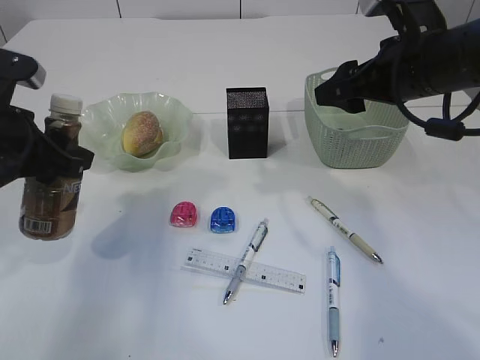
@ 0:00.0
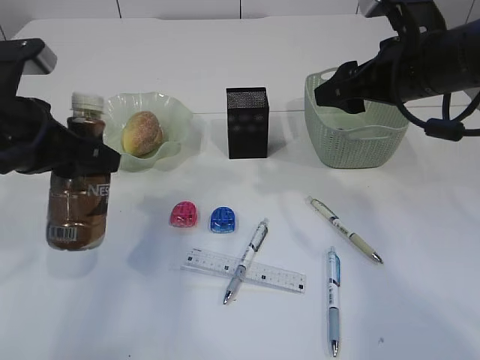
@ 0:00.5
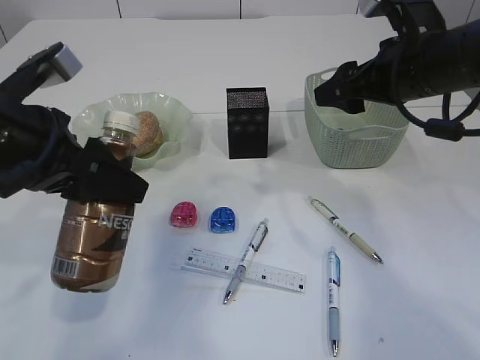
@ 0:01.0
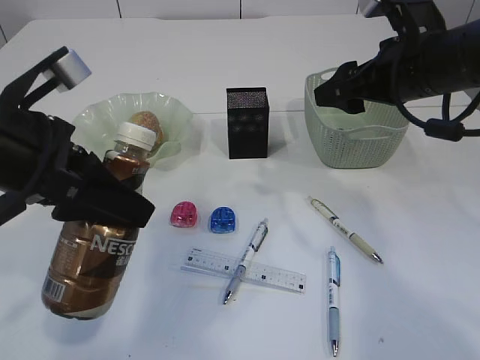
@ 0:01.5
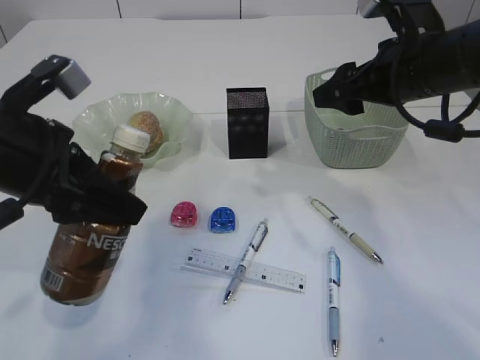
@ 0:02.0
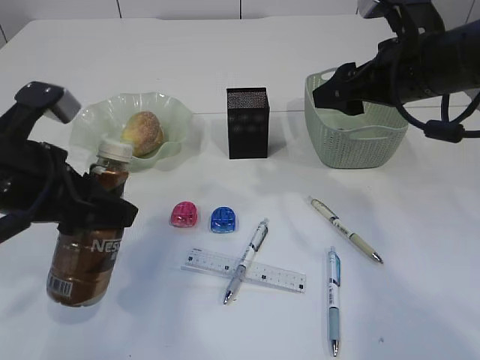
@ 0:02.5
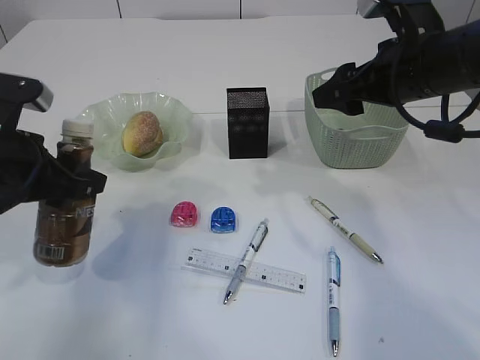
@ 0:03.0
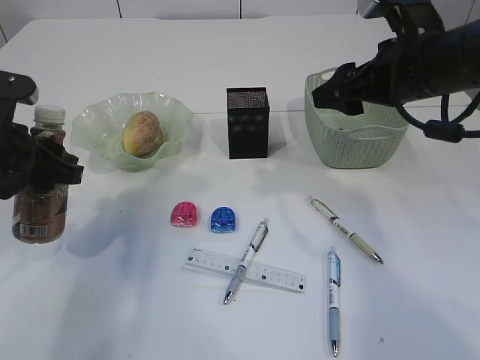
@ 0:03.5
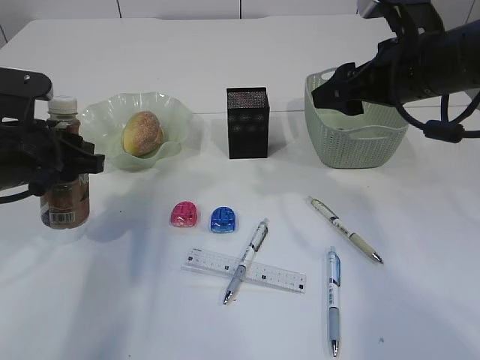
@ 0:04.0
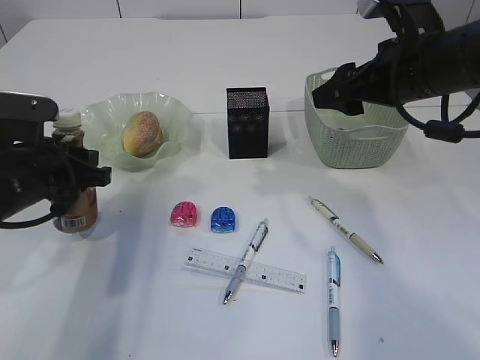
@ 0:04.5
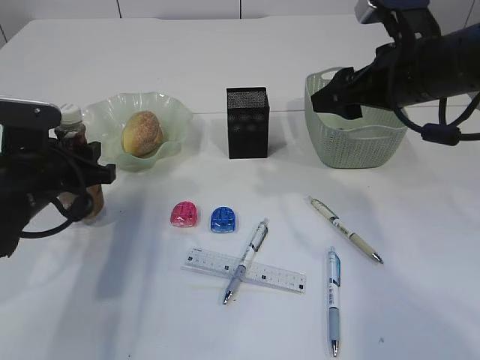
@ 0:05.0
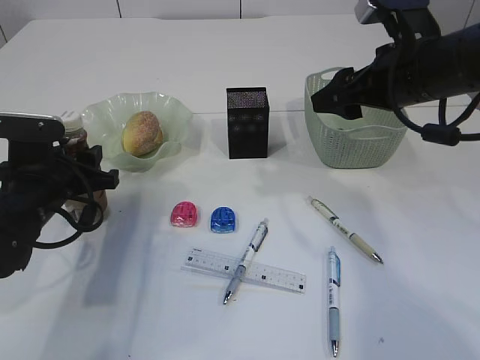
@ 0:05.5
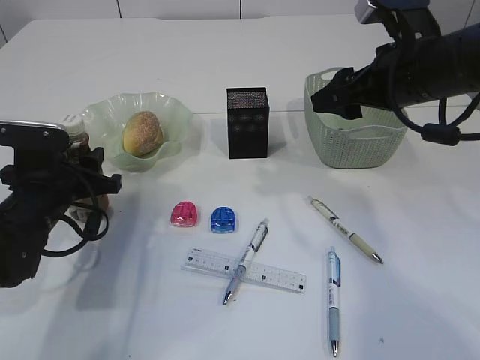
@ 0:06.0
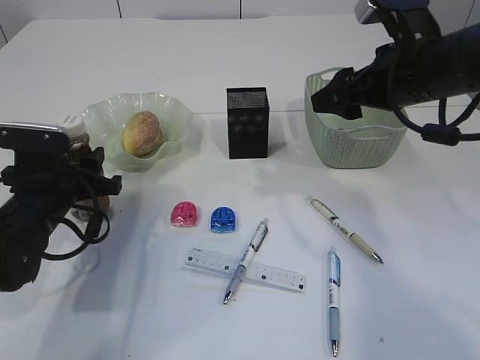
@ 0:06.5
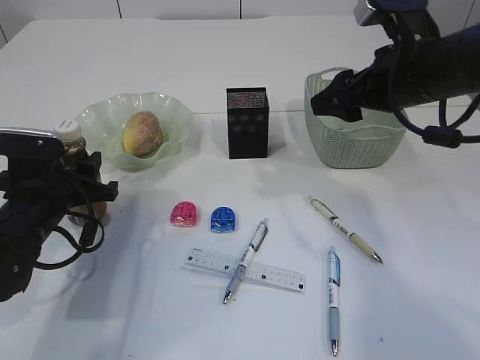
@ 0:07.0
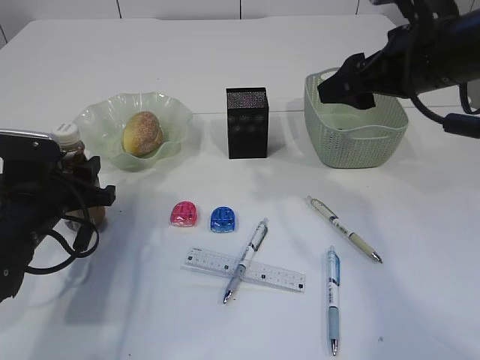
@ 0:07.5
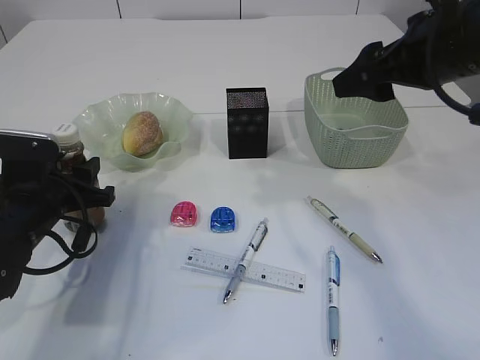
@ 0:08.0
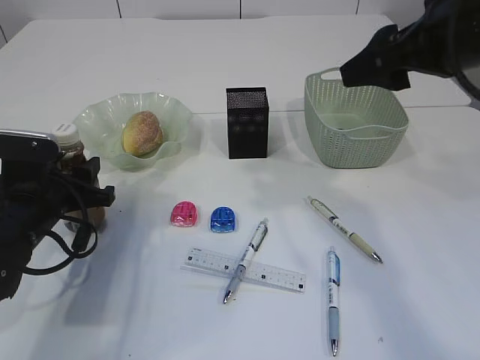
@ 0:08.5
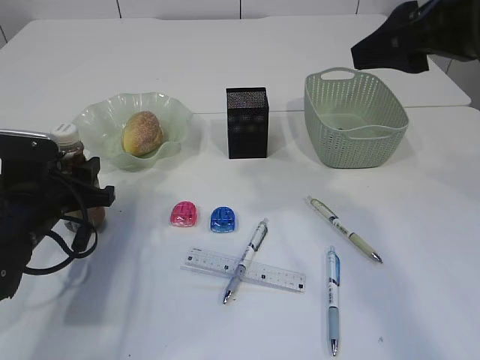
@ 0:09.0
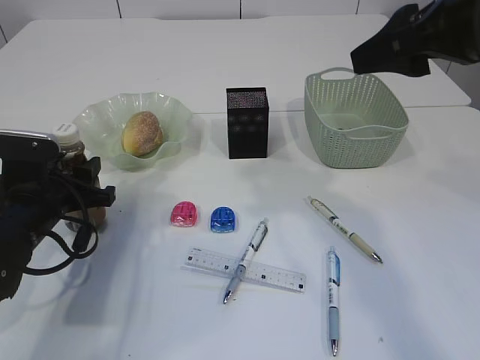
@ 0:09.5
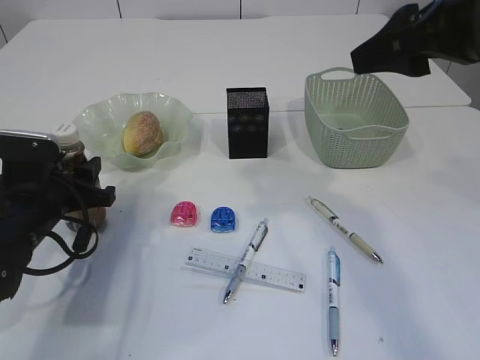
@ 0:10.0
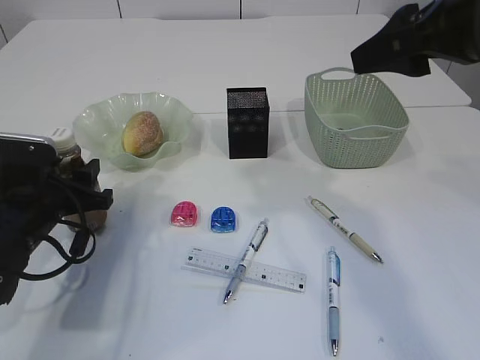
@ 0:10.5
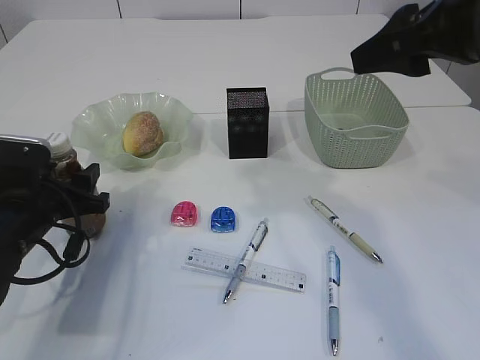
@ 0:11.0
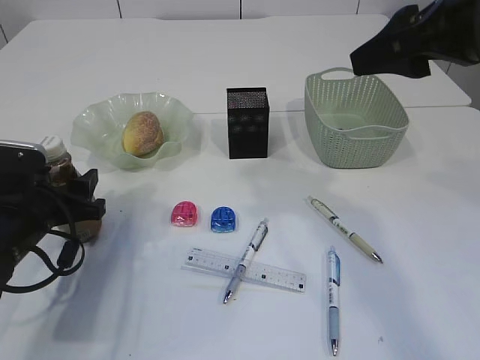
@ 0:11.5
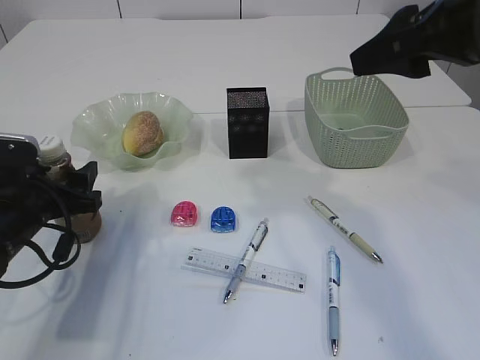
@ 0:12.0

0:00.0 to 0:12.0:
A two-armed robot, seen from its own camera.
0:00.0 to 0:02.0: The left gripper shifts by roughly 5 cm.
0:02.0 to 0:04.0: The left gripper heads downward and forward, covering roughly 10 cm.
0:04.0 to 0:06.0: The left gripper moves downward, approximately 10 cm.
0:06.0 to 0:08.0: The right gripper changes place by some 5 cm.
0:08.0 to 0:10.0: The right gripper shifts by roughly 5 cm.
0:10.0 to 0:12.0: The left gripper opens.

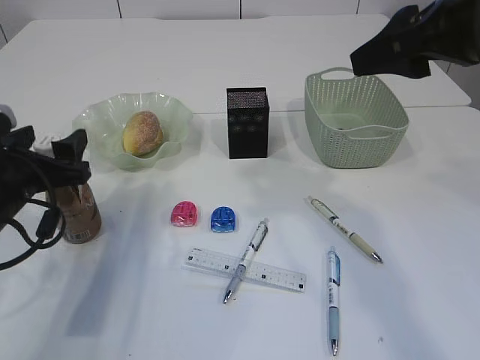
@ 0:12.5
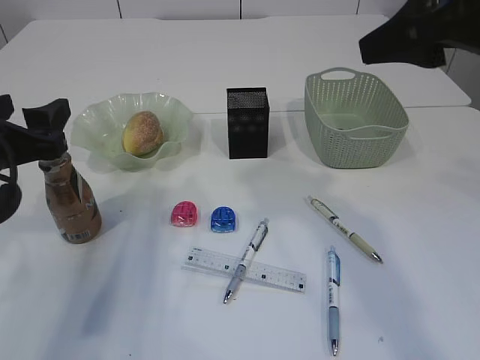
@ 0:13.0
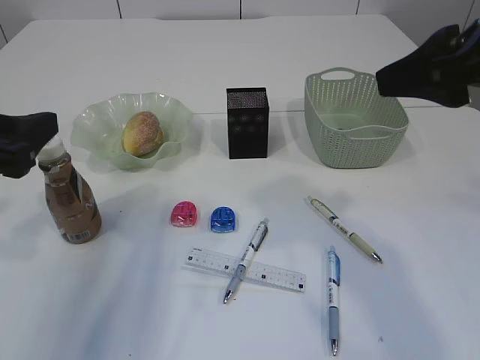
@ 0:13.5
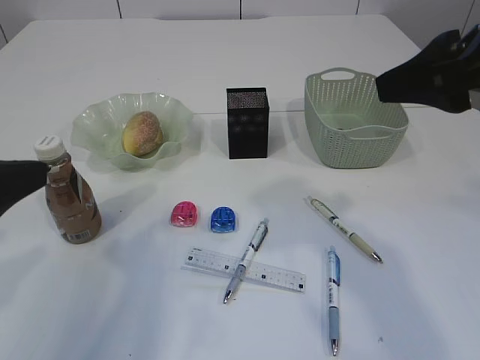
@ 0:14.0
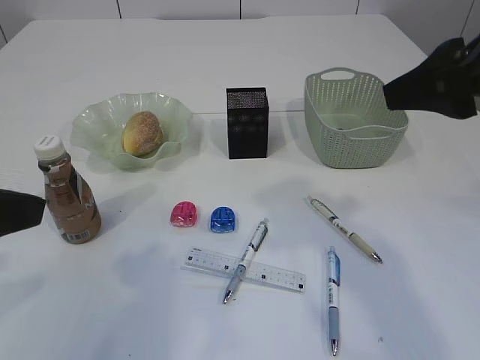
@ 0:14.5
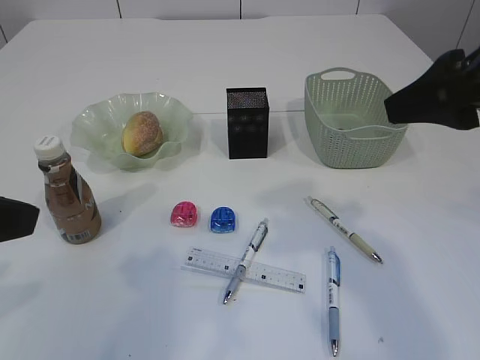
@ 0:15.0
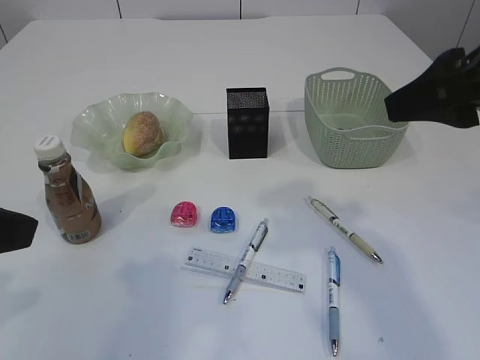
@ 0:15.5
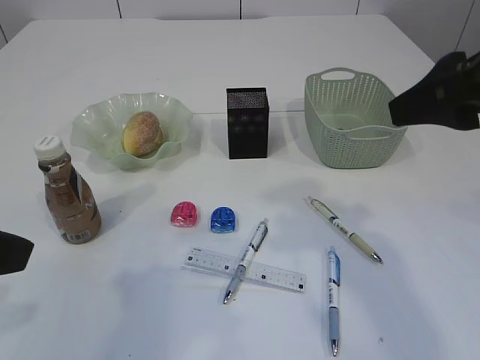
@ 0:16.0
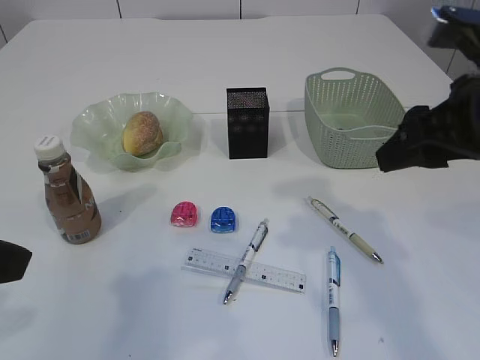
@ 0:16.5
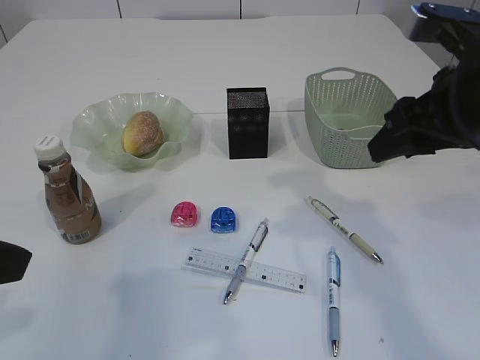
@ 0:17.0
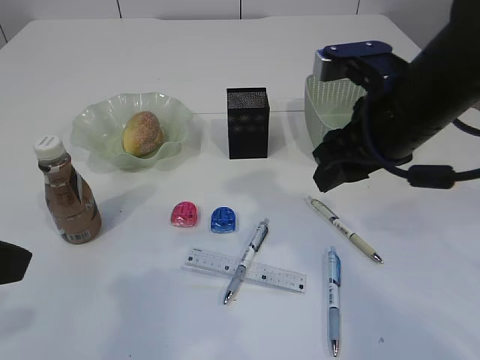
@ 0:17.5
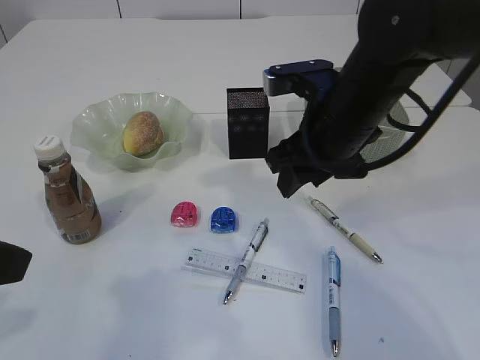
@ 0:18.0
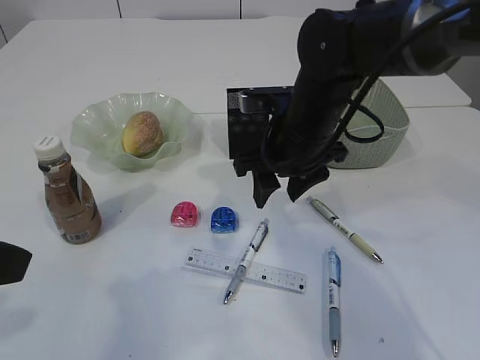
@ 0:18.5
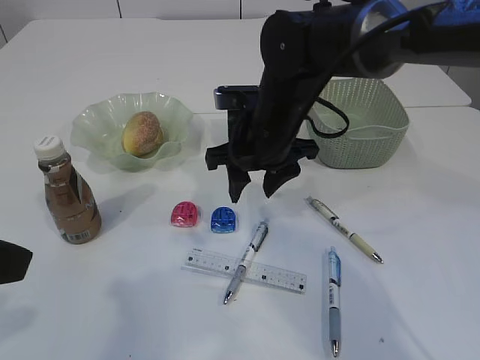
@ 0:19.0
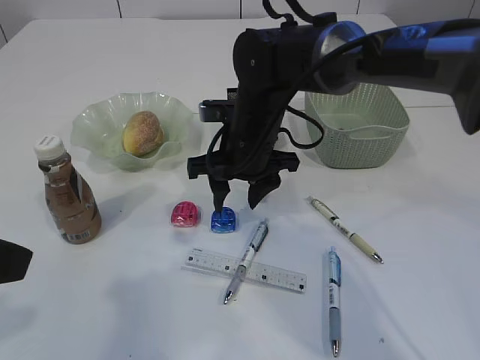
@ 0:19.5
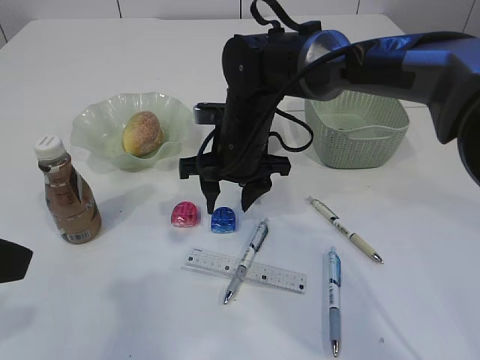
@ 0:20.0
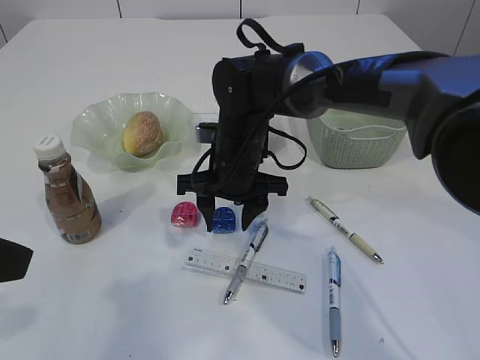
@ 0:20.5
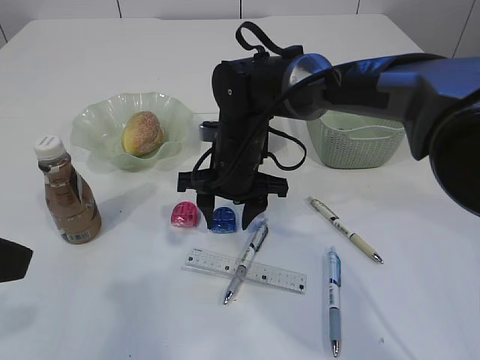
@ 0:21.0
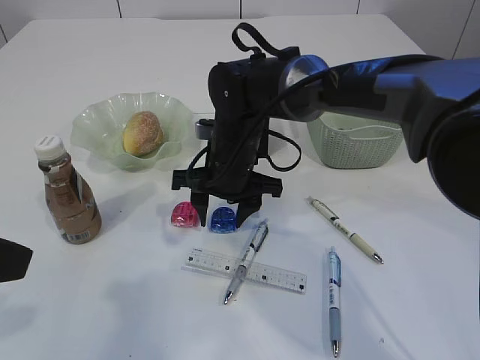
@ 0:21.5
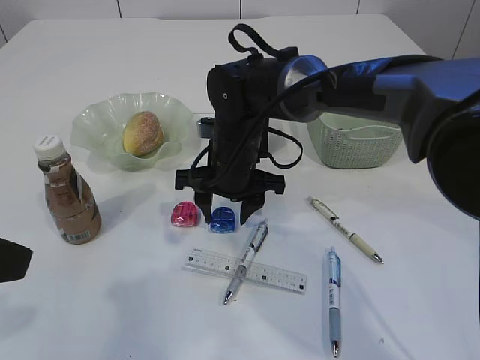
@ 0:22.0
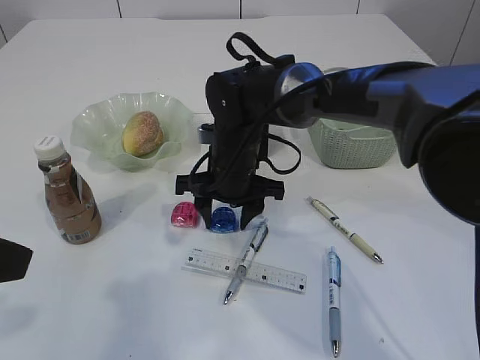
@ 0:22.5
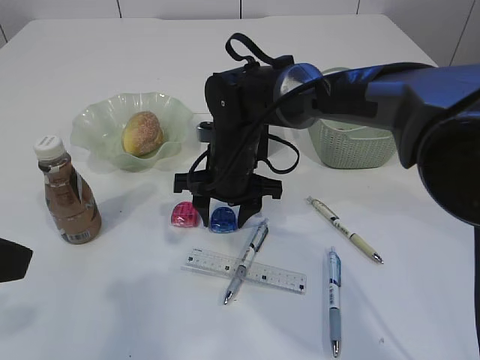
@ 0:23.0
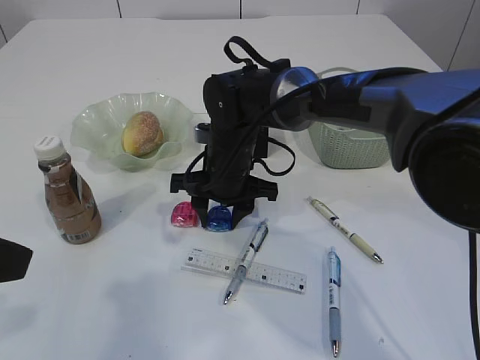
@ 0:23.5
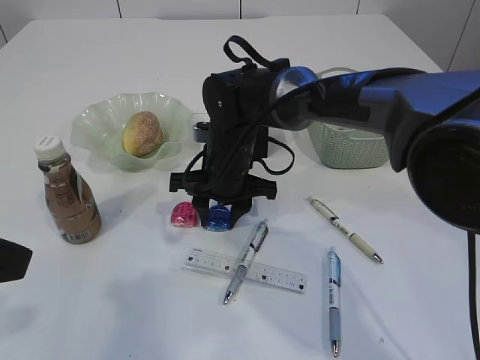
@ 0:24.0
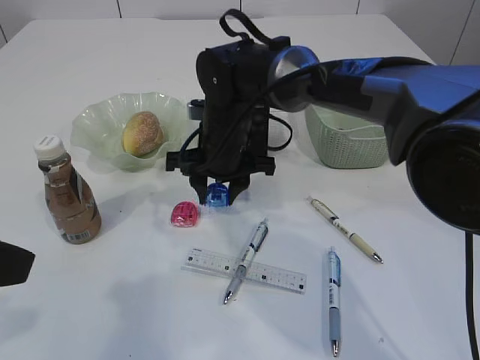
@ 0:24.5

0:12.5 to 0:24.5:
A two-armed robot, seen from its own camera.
0:12.5 to 0:14.5: The left gripper heads upward and backward, covering approximately 20 cm. The right gripper changes place by approximately 5 cm.
0:14.5 to 0:16.5: The right gripper shifts about 5 cm downward.
0:16.5 to 0:18.5: The right gripper shifts approximately 20 cm to the left, forward and downward.
0:18.5 to 0:20.5: The right gripper shifts about 10 cm to the left and downward.
0:20.5 to 0:24.5: The grippers move only a little.

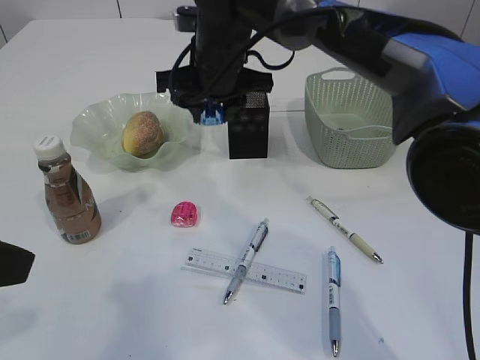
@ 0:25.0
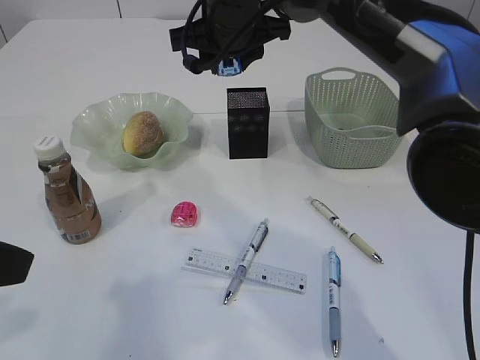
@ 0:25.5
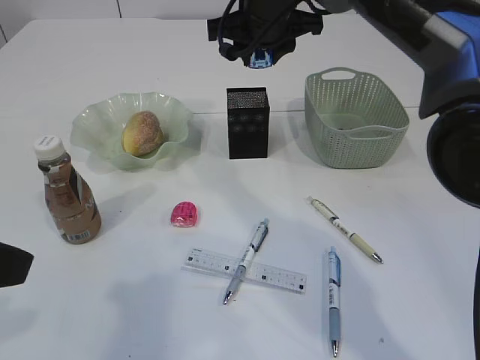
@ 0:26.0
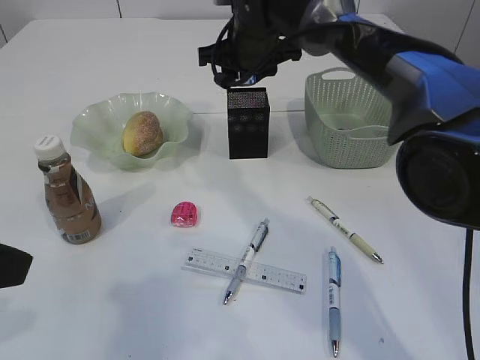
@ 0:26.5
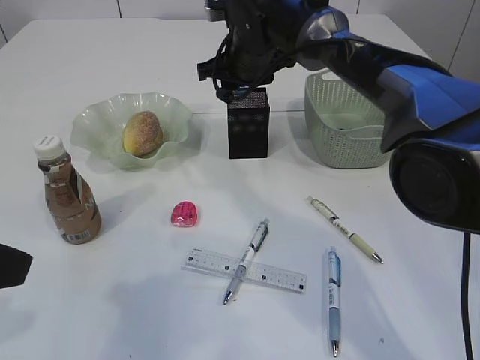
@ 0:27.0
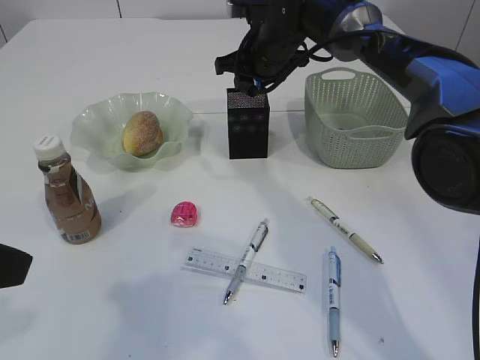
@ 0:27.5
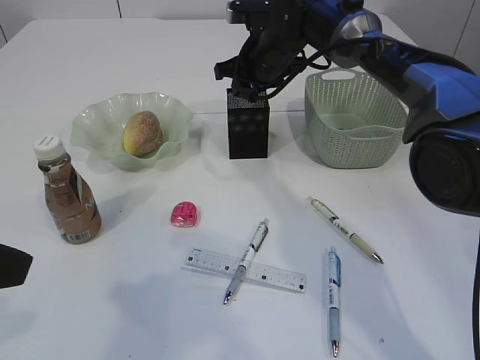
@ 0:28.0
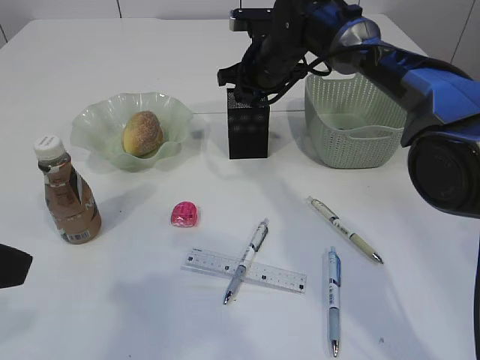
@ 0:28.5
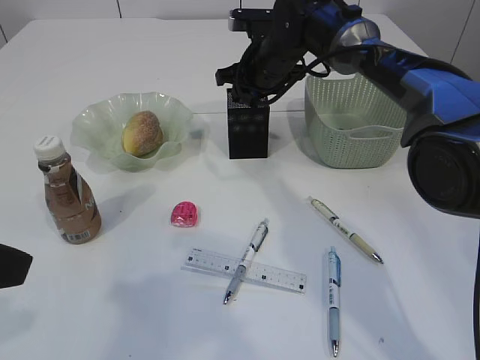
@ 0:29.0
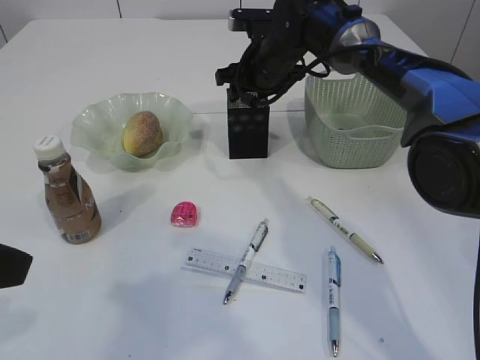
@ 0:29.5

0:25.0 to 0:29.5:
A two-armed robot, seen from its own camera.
0:25.0 to 0:27.0: The right gripper heads forward, covering approximately 5 cm.
0:27.0 to 0:29.5: The grippers stay close to where they were, moving slightly.
